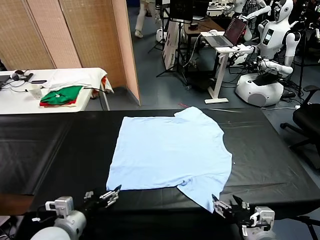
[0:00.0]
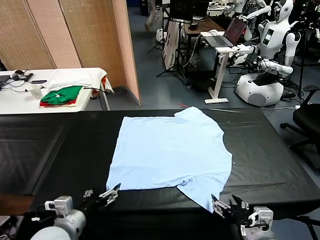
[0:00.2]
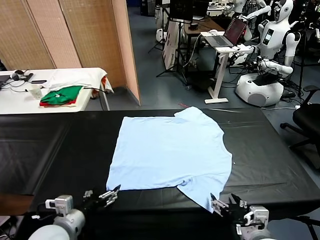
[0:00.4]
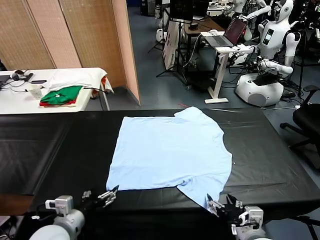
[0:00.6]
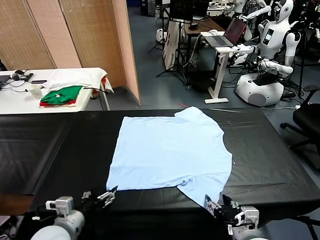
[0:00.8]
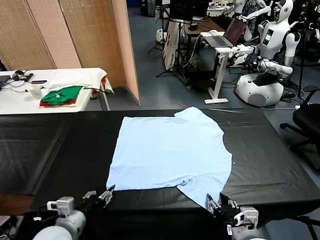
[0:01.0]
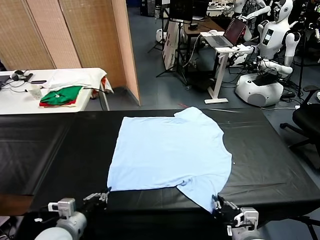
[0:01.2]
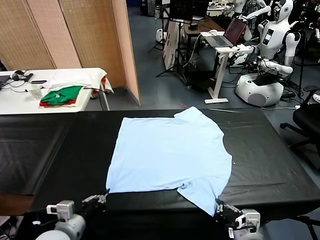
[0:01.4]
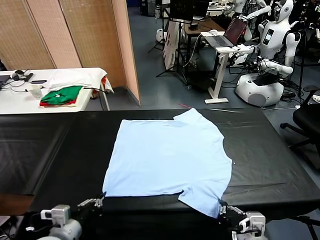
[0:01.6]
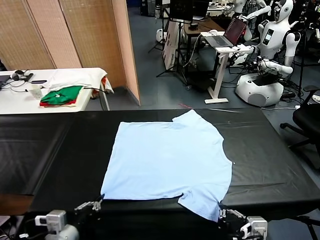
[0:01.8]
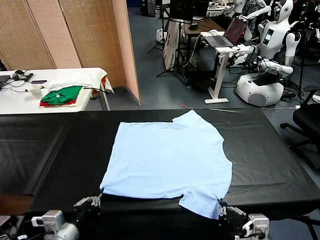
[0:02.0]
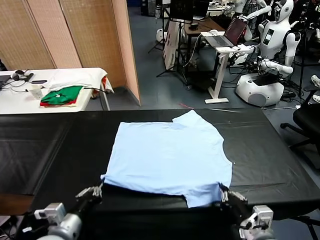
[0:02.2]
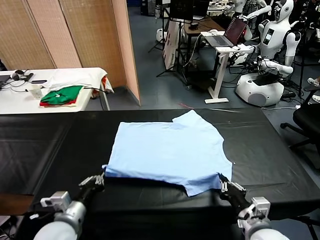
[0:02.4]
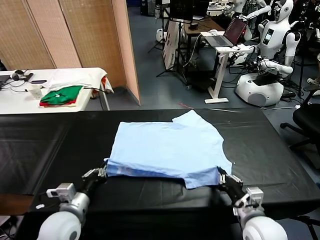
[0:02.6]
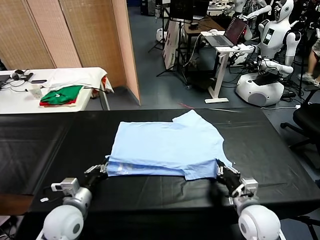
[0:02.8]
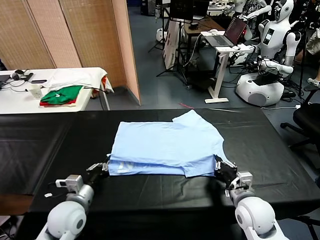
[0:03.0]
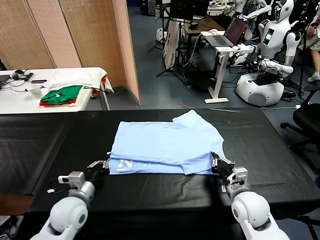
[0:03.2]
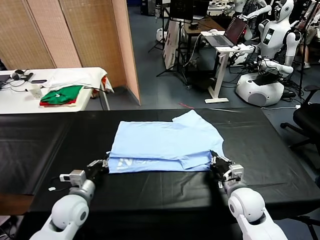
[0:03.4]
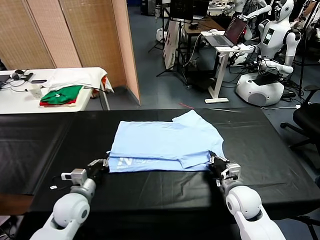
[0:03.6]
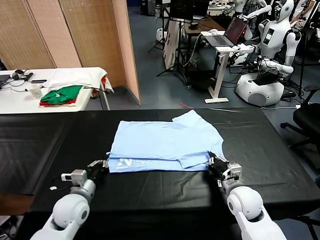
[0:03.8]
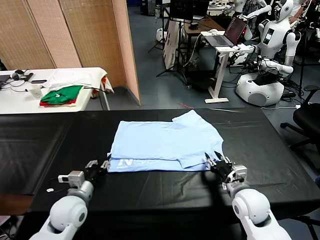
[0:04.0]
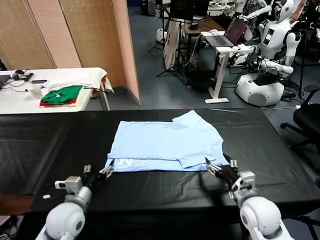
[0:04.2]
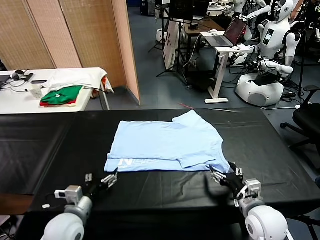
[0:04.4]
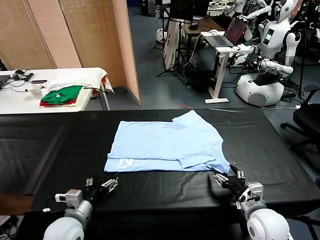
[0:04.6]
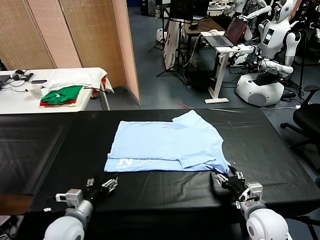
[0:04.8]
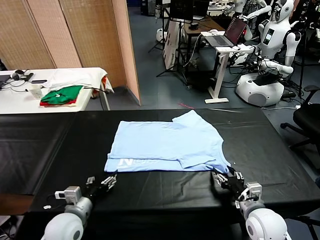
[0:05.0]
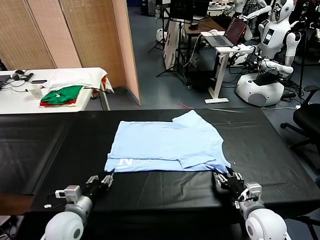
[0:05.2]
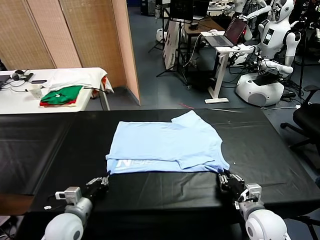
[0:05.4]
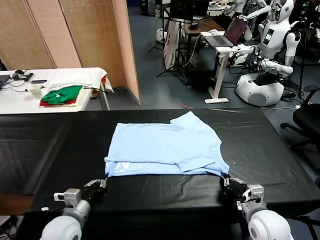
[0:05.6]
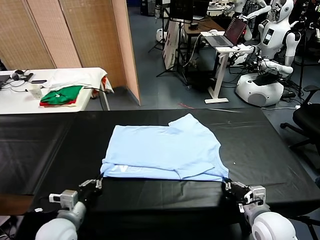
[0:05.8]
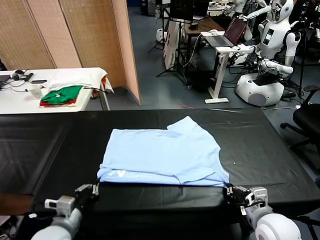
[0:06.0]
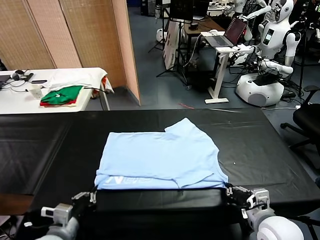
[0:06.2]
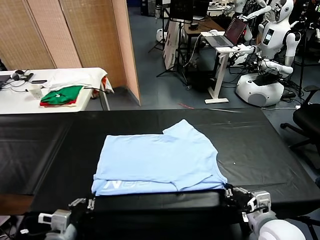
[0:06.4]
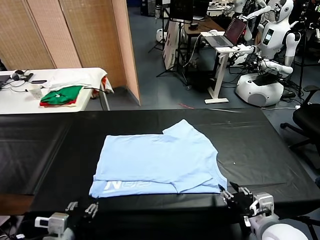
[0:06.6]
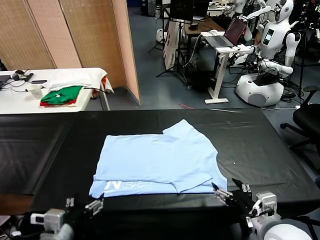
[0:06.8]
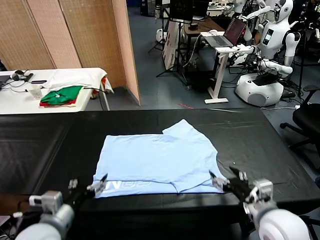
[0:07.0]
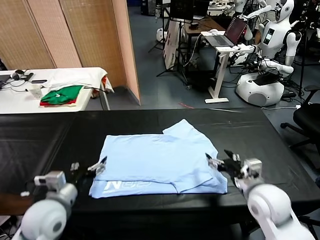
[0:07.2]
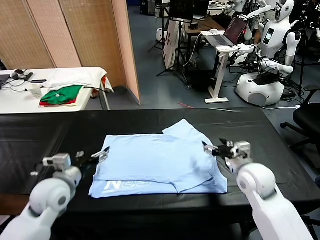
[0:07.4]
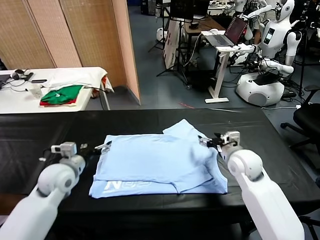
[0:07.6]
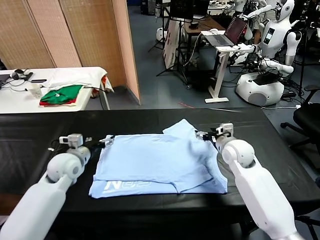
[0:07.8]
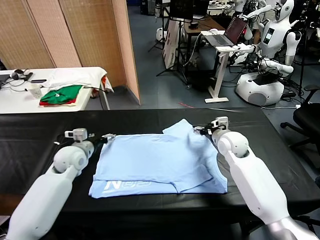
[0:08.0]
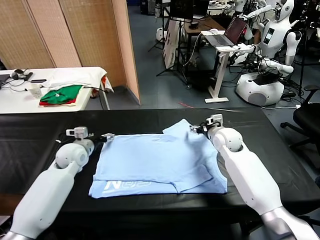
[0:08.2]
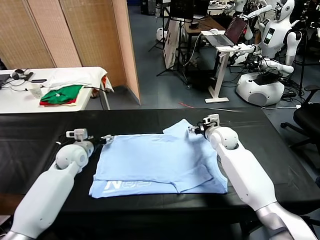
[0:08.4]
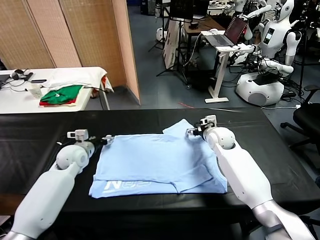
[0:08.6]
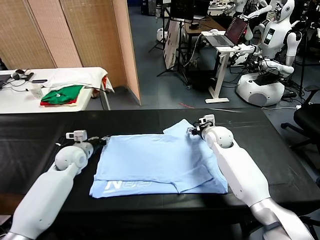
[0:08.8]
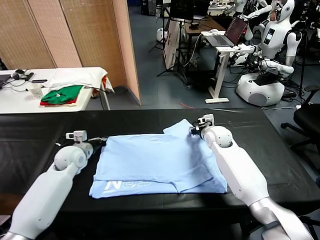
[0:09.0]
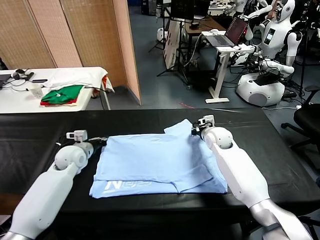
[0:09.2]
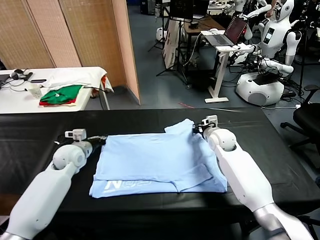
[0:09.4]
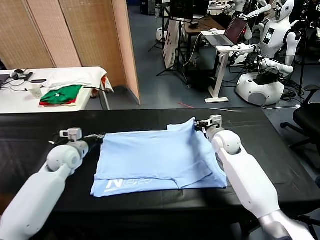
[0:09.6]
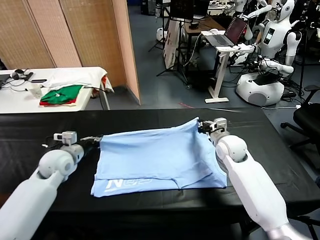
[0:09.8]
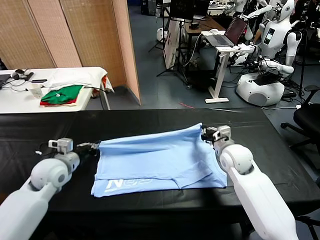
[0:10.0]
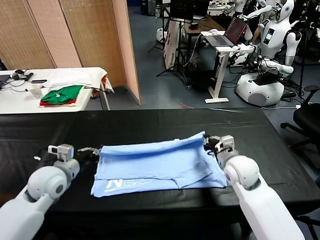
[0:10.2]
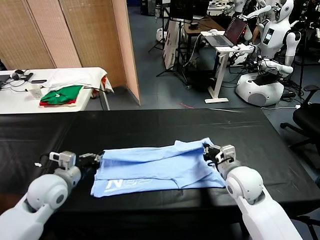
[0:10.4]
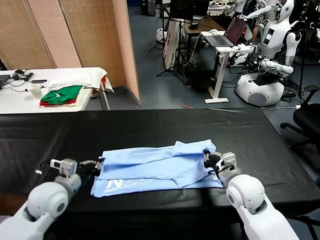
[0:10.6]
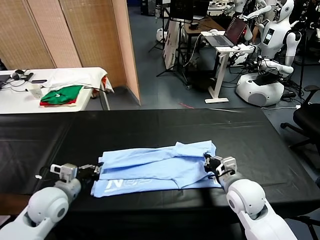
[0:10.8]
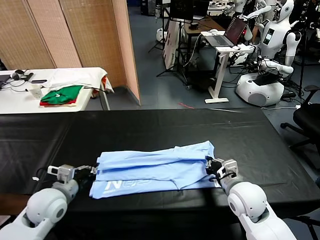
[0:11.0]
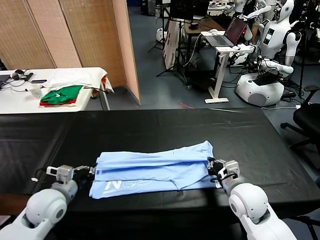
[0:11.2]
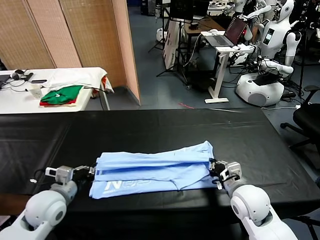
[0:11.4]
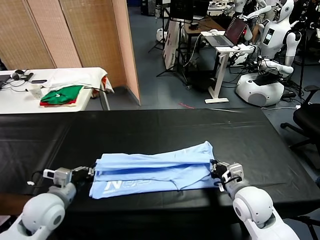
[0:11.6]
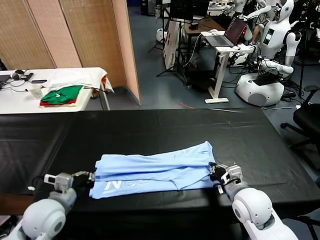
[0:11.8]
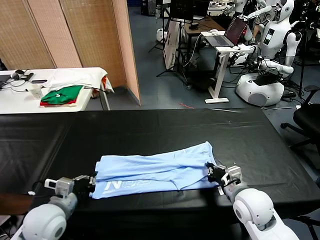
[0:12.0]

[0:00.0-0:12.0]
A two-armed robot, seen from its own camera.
Task of the whole recording: fold and organize the clothes.
Step, 0:00.0 to 0:01.2: use both grippers simultaneously to clamp the lower edge of the clothing fabric.
Step, 0:01.4 to 0:04.0: use both grippers to drag the lower edge of the fabric forward and fold it over the upper edge.
Step, 0:04.2 to 0:06.6: Drag the clothes downward with both gripper.
Step, 0:06.8 to 0:09.0: use both grippers simultaneously to clamp the upper edge of the clothing fabric.
0:01.6 to 0:03.0: The right gripper is displaced forward and downward by roughly 20 cm, while the left gripper moves forward, some 10 cm.
0:03.0 to 0:04.4: The left gripper opens. The right gripper travels backward by roughly 5 cm, and opens its fingers.
0:04.4 to 0:06.0: The left gripper shifts by some 5 cm, and closes. The right gripper moves upward, some 5 cm, and closes.
0:06.0 to 0:07.6: The grippers both shift forward by approximately 25 cm. The left gripper opens its fingers. The right gripper opens.
0:07.6 to 0:09.0: Both grippers move forward, about 5 cm. The left gripper closes; the right gripper closes.
0:09.0 to 0:10.4: The grippers both shift backward by roughly 20 cm.
0:10.4 to 0:12.0: The left gripper shifts some 5 cm backward. Meanwhile the right gripper opens up.

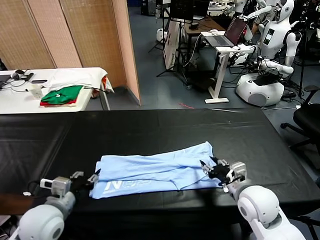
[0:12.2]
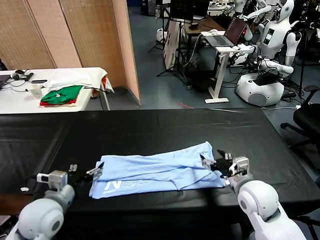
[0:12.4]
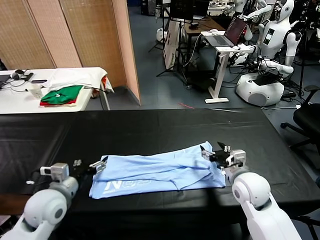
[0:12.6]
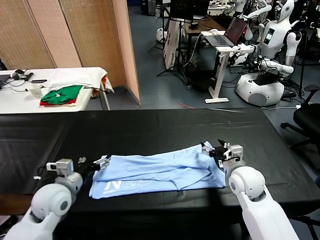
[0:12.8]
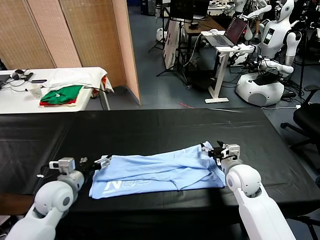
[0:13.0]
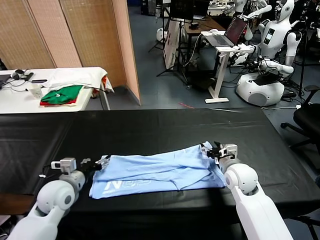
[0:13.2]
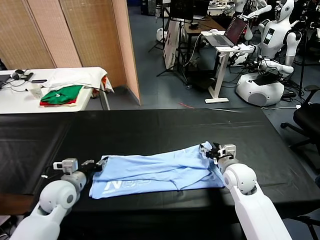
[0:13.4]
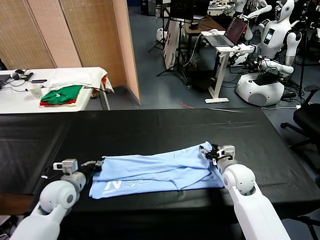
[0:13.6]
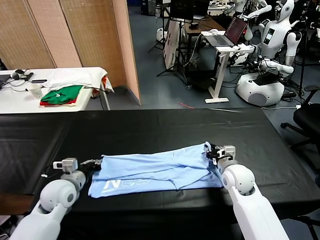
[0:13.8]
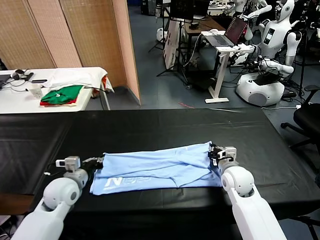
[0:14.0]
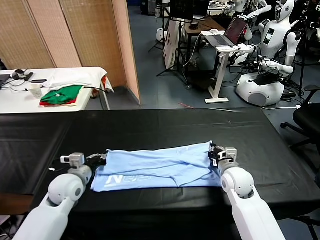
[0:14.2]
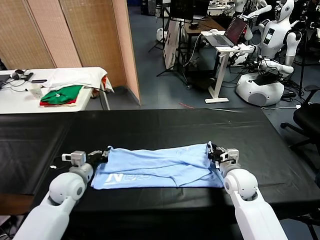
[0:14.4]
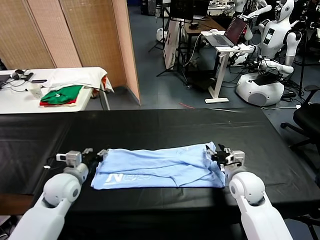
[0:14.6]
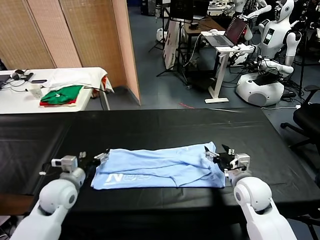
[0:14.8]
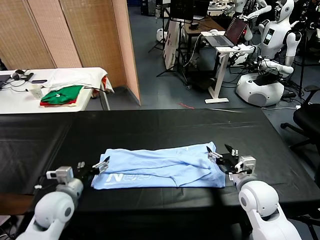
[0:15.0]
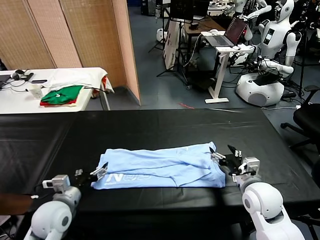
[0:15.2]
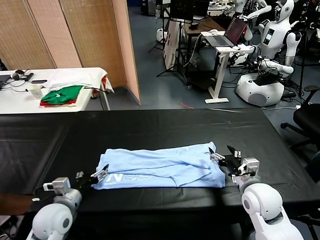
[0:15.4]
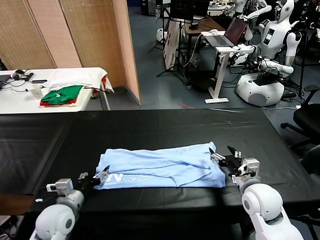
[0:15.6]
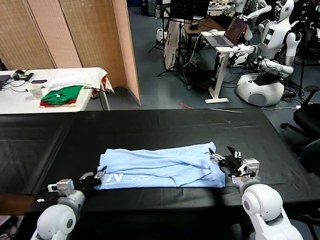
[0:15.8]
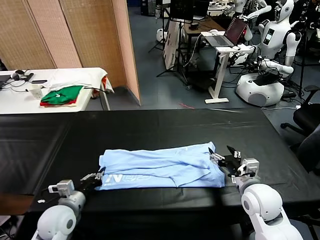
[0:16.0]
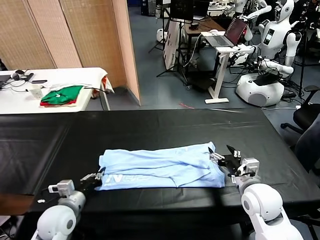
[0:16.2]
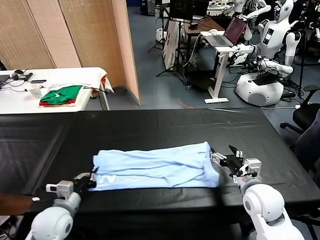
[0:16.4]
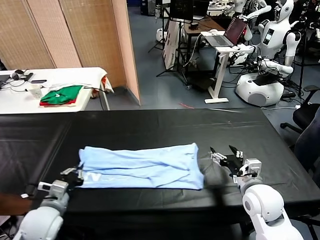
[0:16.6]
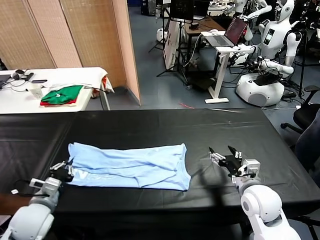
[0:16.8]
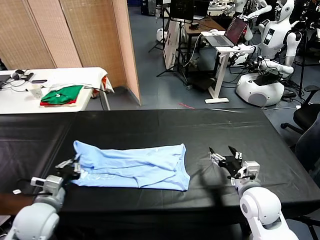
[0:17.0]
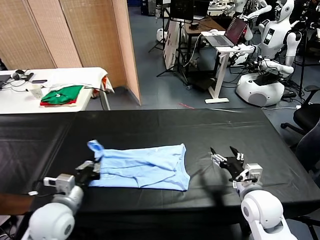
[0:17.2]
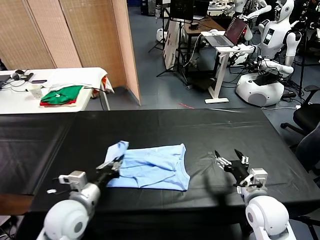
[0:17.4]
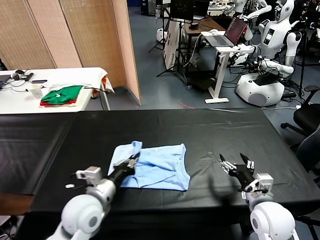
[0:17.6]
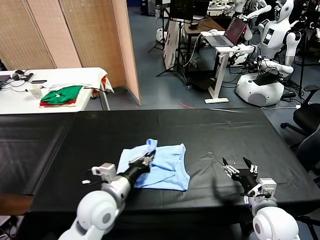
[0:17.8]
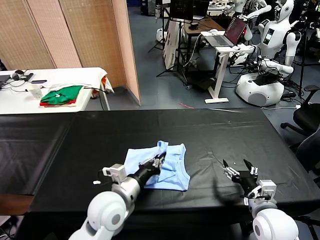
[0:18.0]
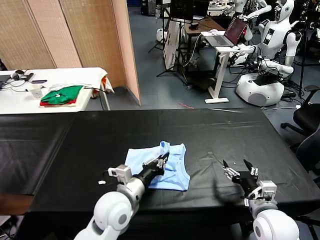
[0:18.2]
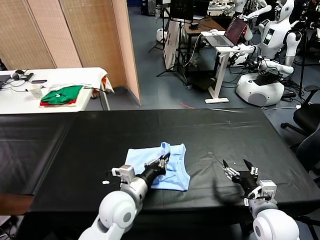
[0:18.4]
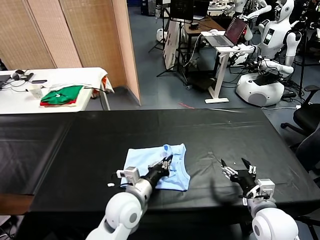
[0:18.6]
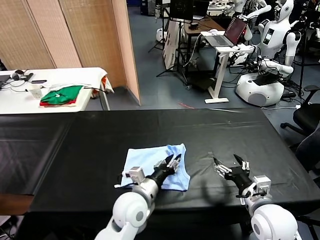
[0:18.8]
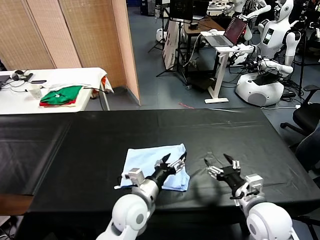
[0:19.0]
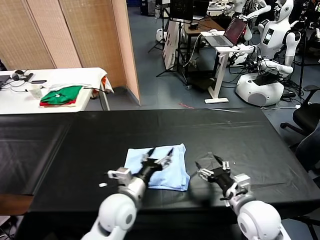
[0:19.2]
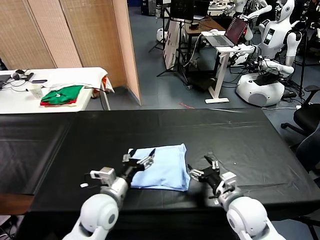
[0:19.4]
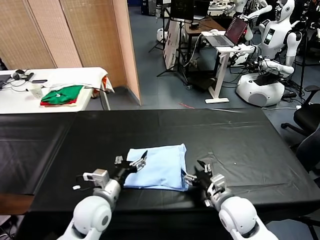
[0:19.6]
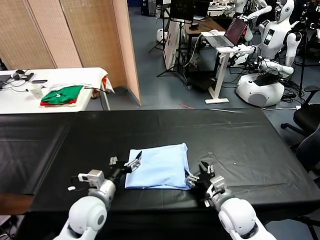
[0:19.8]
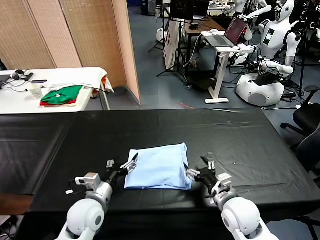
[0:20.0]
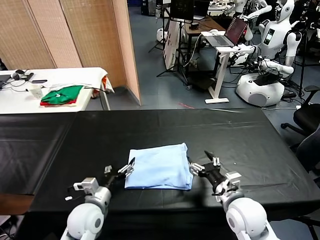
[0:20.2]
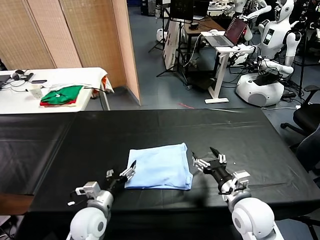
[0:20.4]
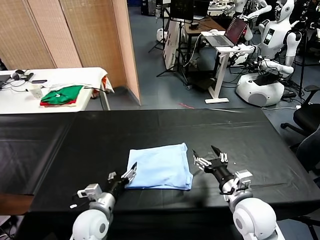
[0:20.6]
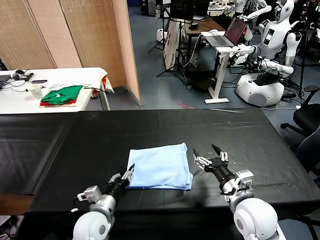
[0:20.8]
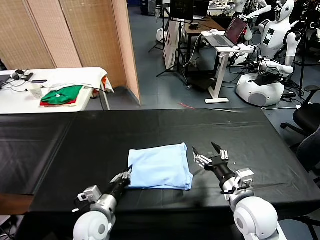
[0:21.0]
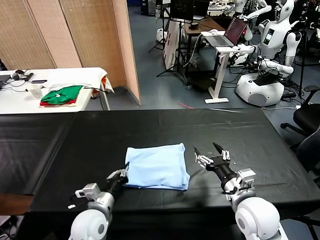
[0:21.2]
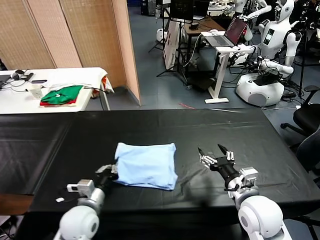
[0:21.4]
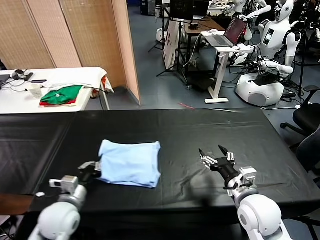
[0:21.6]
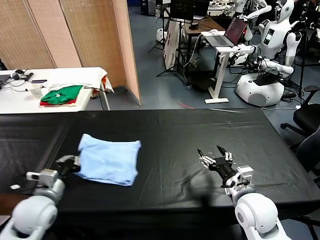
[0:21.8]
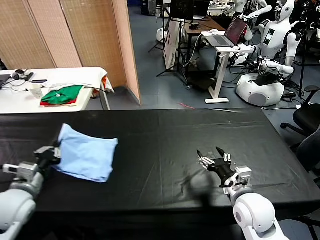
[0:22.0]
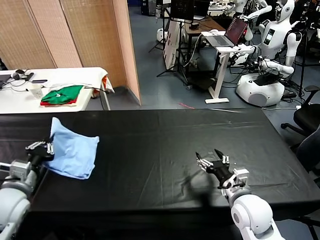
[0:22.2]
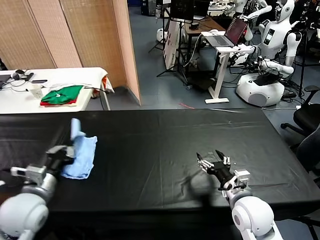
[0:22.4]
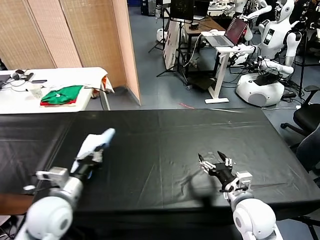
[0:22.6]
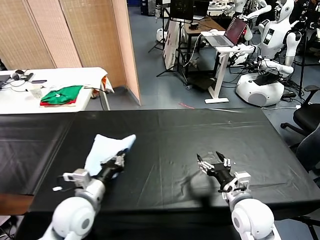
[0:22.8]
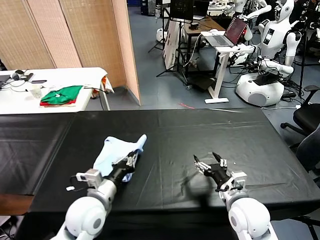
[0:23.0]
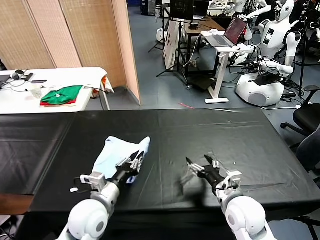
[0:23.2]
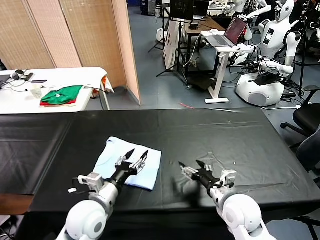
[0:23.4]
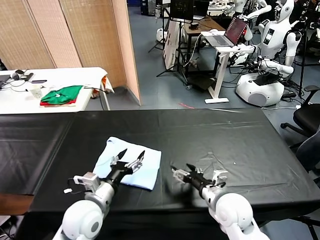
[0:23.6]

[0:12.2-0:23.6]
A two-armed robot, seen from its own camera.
Task of the whole recording: fold and organize the clothes.
Step, 0:12.4 to 0:16.0: use the left gripper to clamp the left edge of the fabric.
Step, 0:16.2 to 0:18.8: use the left gripper to drag the left edge of the fabric to the left and folds it over the right edge.
Step, 0:19.0 to 0:23.2: Flip the folded clothes over with left gripper.
0:12.2 to 0:13.6: Both grippers travel together forward and downward, roughly 10 cm. The left gripper closes its fingers, while the right gripper closes its fingers.
0:13.6 to 0:15.0: The left gripper moves approximately 5 cm, and opens up. Meanwhile the right gripper travels backward by roughly 10 cm, and opens up.
0:15.0 to 0:16.4: The left gripper closes up.
0:16.4 to 0:17.8: The right gripper shifts some 5 cm backward. Meanwhile the left gripper heads to the right and upward, covering about 15 cm.
0:17.8 to 0:19.4: The right gripper is displaced to the left by roughly 5 cm. Meanwhile the left gripper moves about 10 cm to the right and comes back, and opens.
0:19.4 to 0:20.8: The left gripper is displaced downward by approximately 5 cm, and closes. The right gripper moves roughly 5 cm.
0:20.8 to 0:22.2: The left gripper goes roughly 25 cm to the left and upward, and closes.
0:22.2 to 0:23.6: The left gripper travels to the right by about 20 cm, and opens up; the right gripper shifts by approximately 5 cm.
